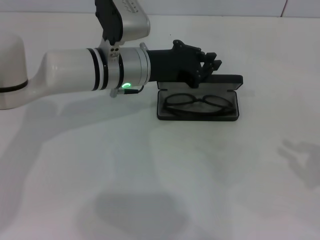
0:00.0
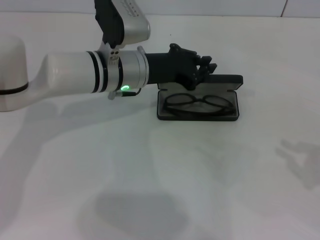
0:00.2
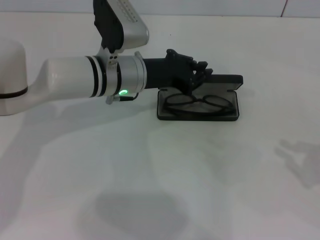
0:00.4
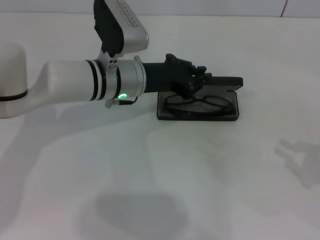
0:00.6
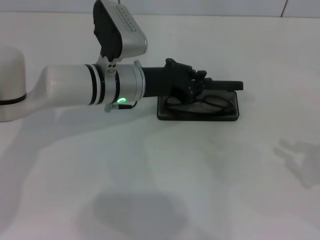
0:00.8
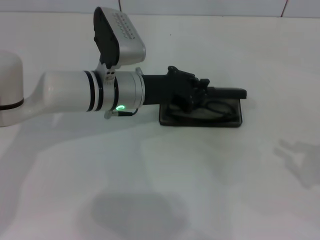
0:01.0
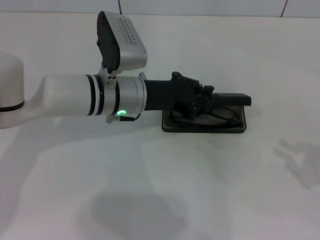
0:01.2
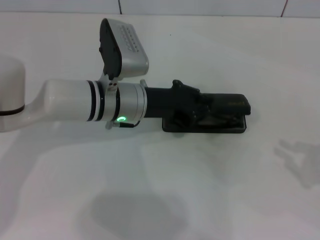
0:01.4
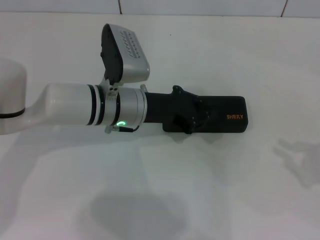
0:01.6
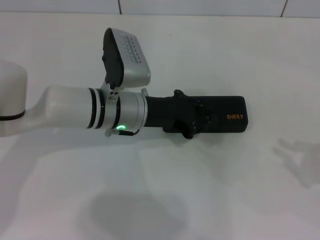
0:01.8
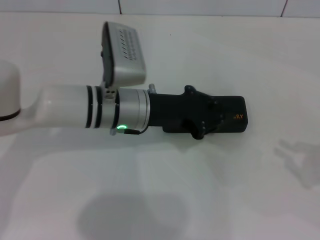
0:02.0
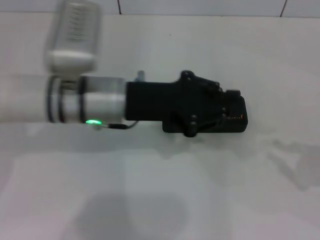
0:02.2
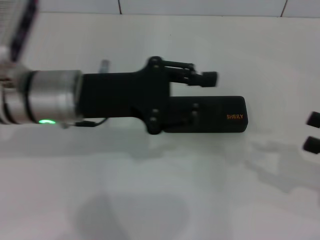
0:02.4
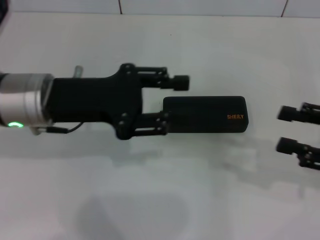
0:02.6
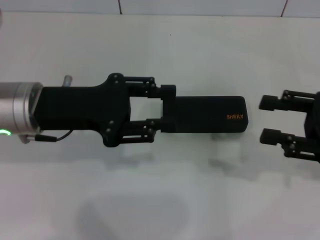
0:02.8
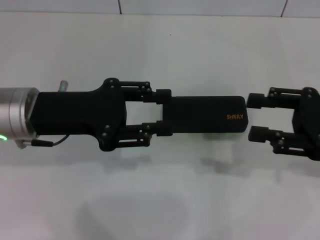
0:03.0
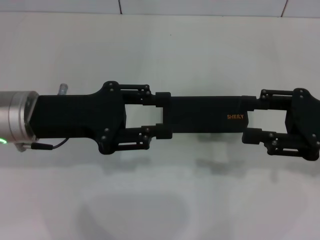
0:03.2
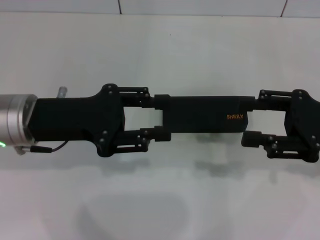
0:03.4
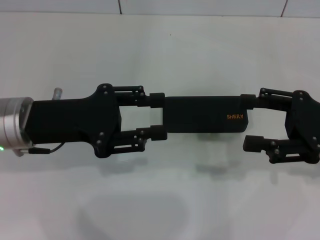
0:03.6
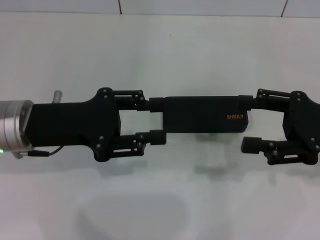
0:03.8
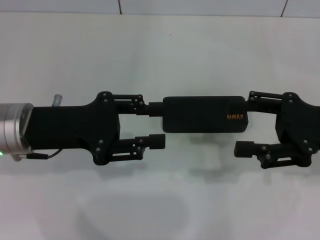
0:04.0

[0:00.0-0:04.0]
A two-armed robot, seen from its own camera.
0:00.0 to 0:01.4: There are only small adjustments of the grippers.
0:01.4 to 0:02.6: The right gripper goes roughly 5 cm to the left, while the left gripper goes about 15 cm to the left, upward and backward.
0:02.6 to 0:04.0: The right gripper is displaced to the left by roughly 5 cm, and opens.

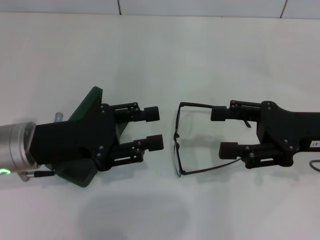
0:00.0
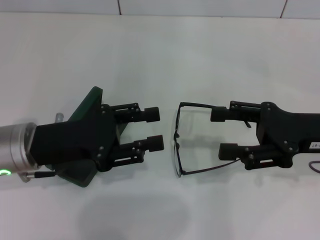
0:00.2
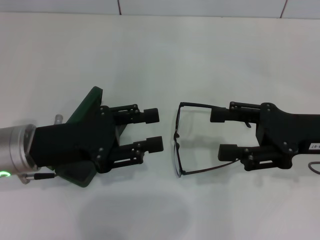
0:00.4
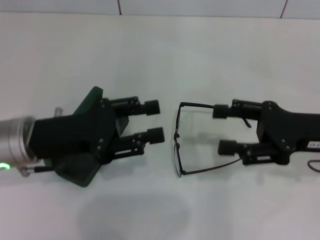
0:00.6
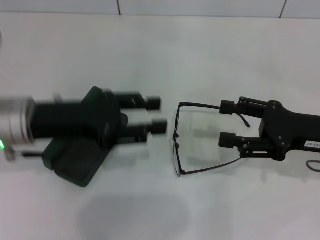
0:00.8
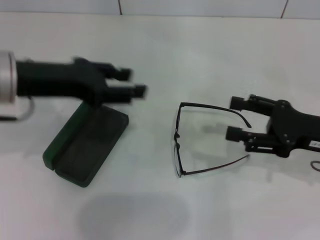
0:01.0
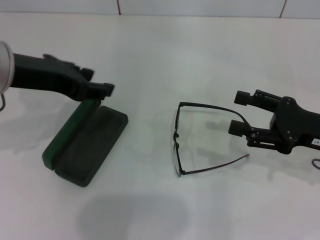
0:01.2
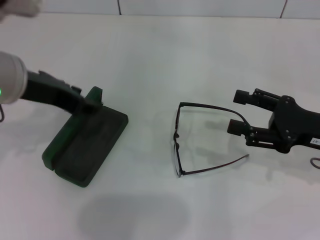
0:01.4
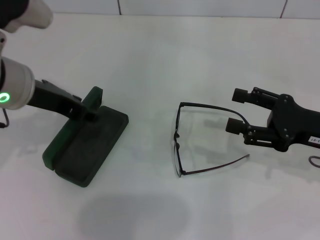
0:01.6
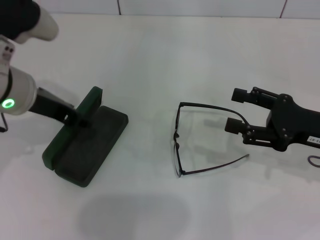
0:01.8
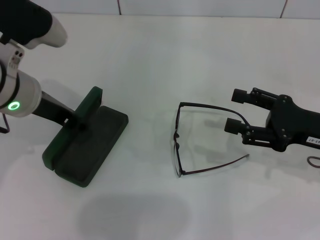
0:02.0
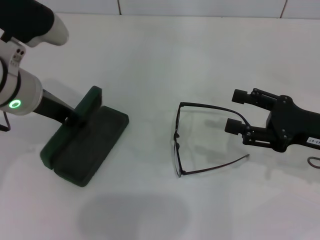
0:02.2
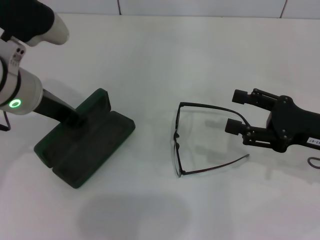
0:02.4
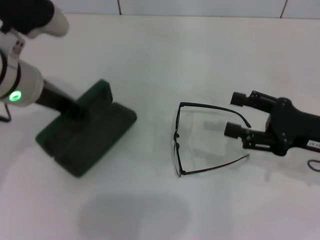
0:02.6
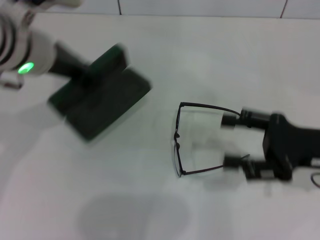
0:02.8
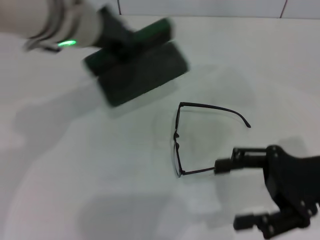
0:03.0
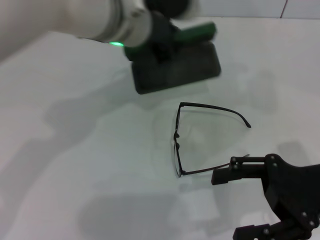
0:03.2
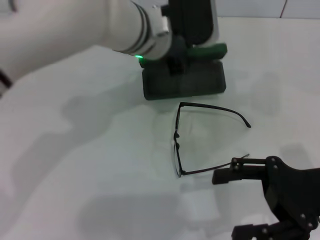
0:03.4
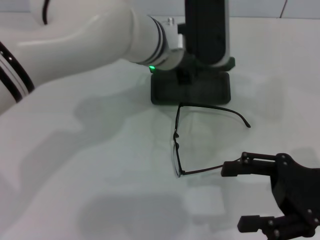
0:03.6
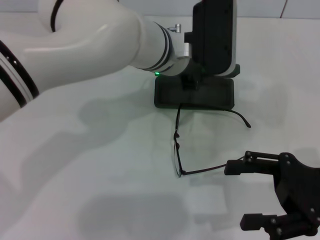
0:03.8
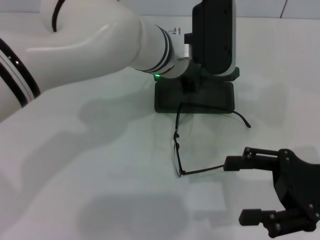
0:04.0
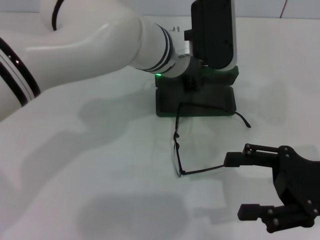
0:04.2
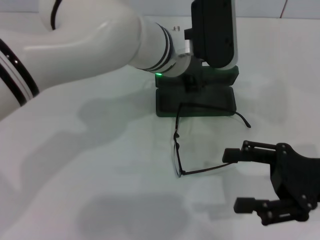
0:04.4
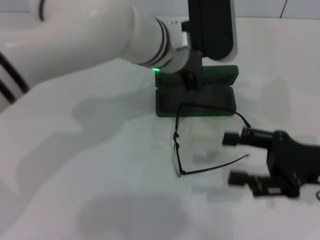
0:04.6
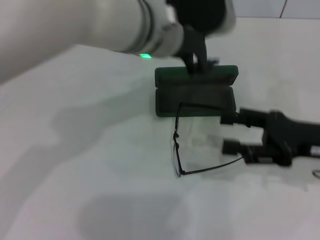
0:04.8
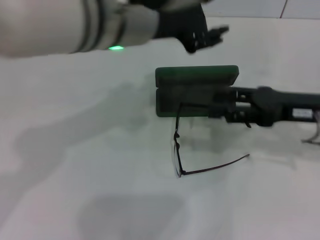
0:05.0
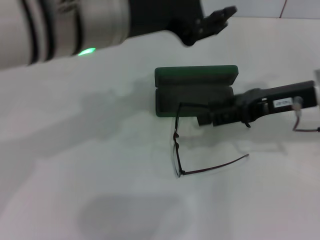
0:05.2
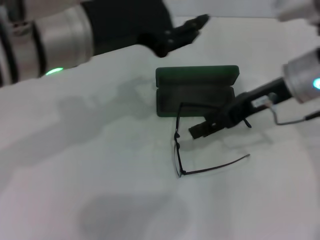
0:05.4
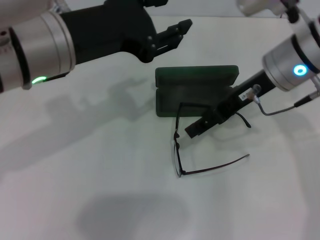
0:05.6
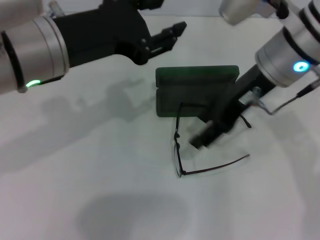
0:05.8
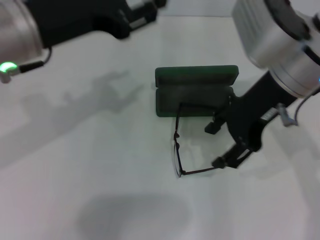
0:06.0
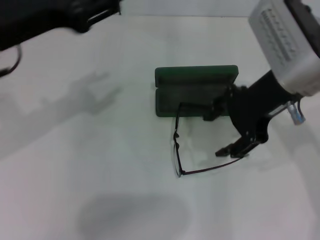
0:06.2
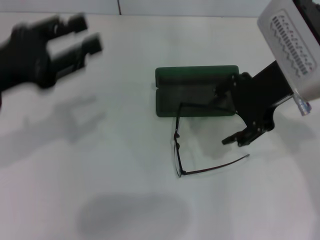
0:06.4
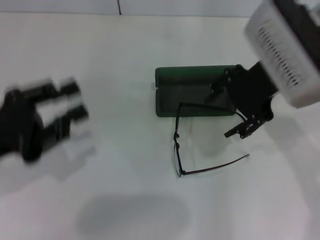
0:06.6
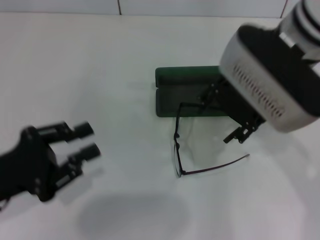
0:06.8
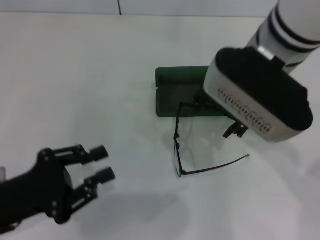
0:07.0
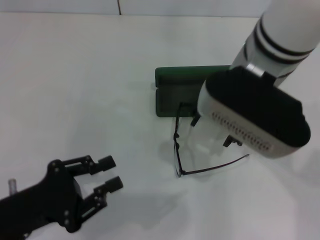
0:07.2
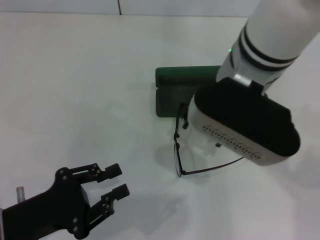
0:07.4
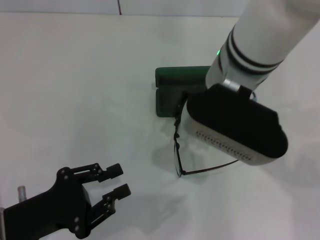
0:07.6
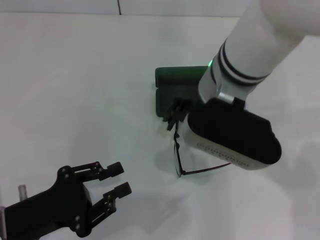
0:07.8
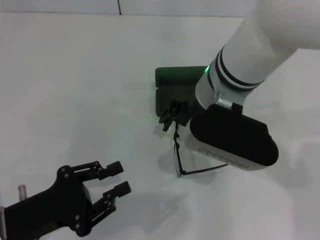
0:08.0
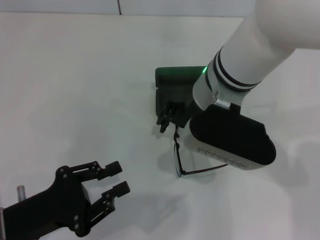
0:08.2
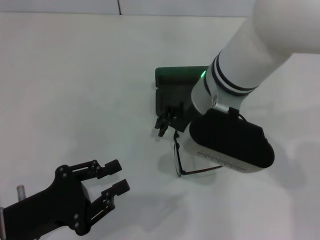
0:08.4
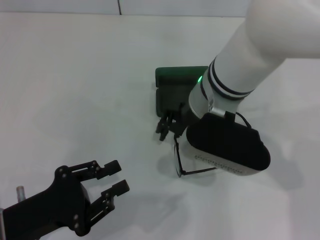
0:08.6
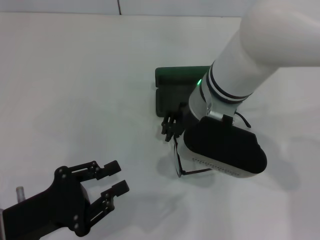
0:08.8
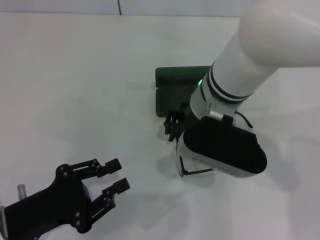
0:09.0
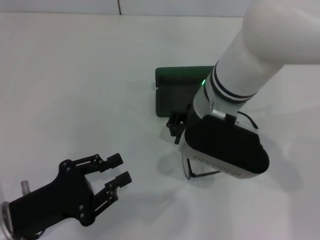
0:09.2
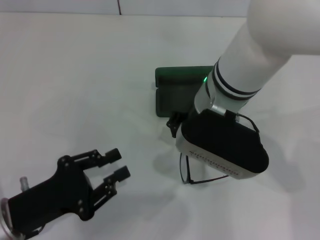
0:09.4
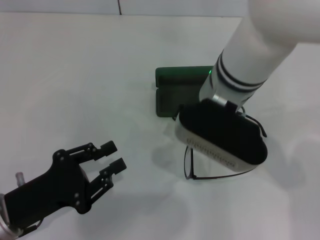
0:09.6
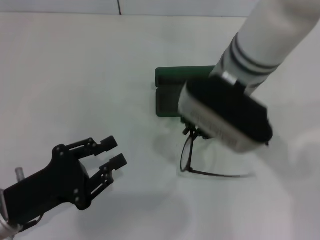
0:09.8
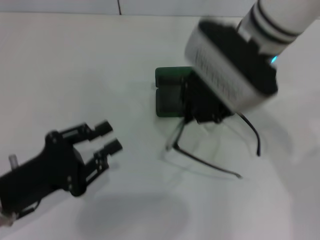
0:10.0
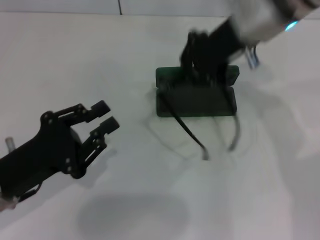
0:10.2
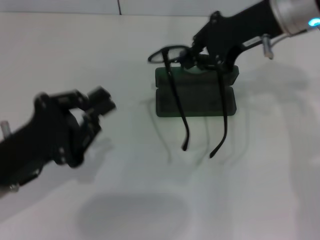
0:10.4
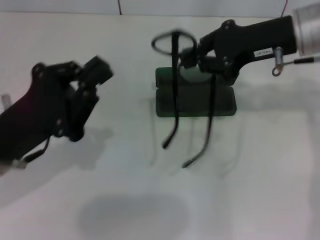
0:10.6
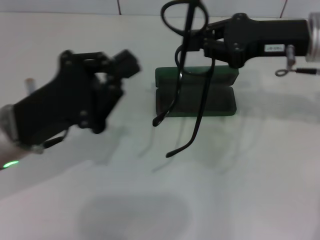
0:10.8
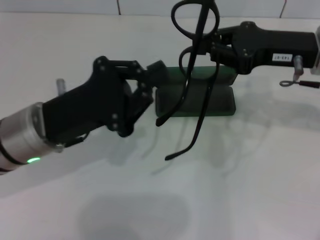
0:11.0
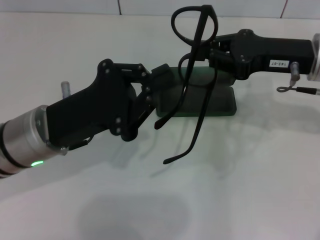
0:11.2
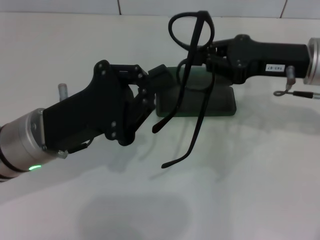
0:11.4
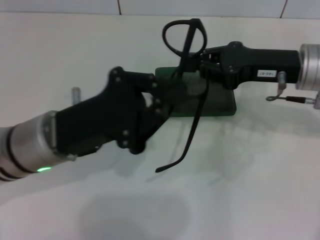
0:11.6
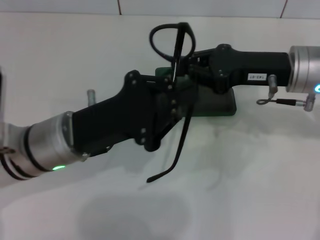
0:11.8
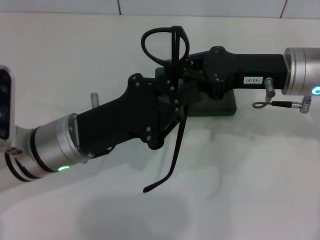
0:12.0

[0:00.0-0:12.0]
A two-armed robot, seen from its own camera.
Step, 0:00.0 to 0:02.4: Grab the glasses case with your left hand.
Step, 0:02.6 to 0:04.6: Place the glasses case in the center of the table with your left hand.
Step, 0:04.8 to 0:09.4: Grab the eyeglass frame with your right hand.
0:00.0 to 0:01.6: The left gripper heads upward, covering some 10 cm.
0:01.6 to 0:03.0: The left gripper heads to the right, covering approximately 10 cm, and closes.
0:03.0 to 0:04.4: The left gripper shifts approximately 15 cm to the right and downward.
0:04.4 to 0:06.0: The right gripper moves upward, to the left and forward, roughly 20 cm, while the left gripper moves to the left, backward and upward, about 20 cm, and opens its fingers.
0:06.0 to 0:07.6: The left gripper moves downward and backward, some 25 cm. Meanwhile the right gripper moves to the left, roughly 10 cm.
0:07.6 to 0:09.0: The right gripper is displaced downward by about 5 cm, and closes up.
0:09.0 to 0:10.4: The left gripper ends up roughly 5 cm from where it was, while the right gripper shifts about 15 cm to the right, upward and forward.
0:10.4 to 0:12.0: The right gripper moves downward and backward, approximately 10 cm; the left gripper travels to the right and forward by roughly 10 cm.

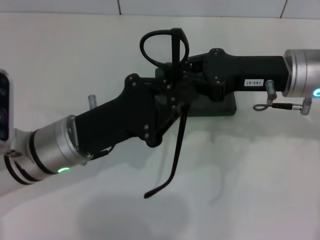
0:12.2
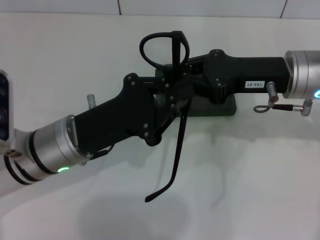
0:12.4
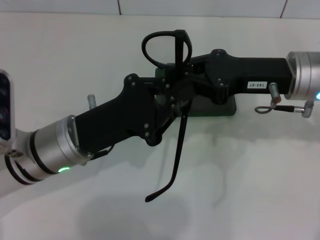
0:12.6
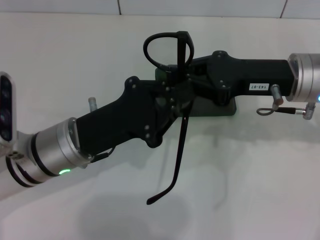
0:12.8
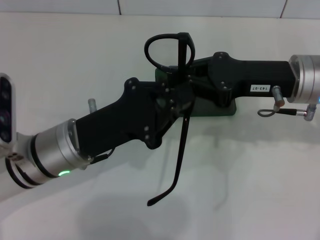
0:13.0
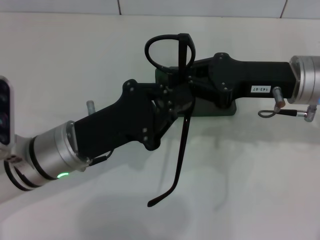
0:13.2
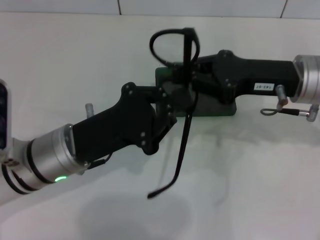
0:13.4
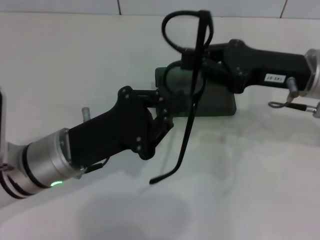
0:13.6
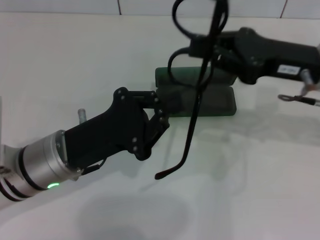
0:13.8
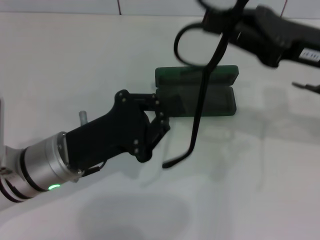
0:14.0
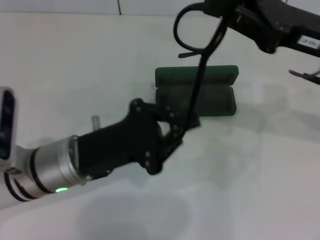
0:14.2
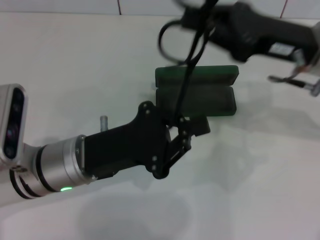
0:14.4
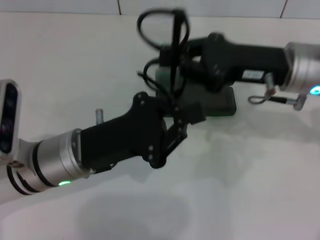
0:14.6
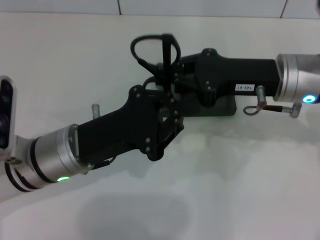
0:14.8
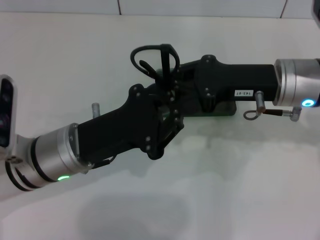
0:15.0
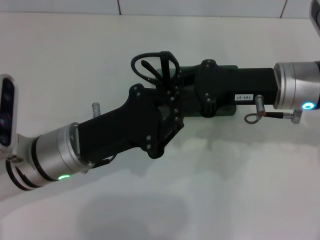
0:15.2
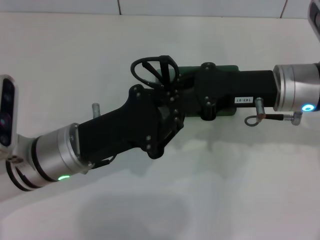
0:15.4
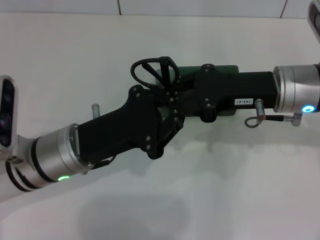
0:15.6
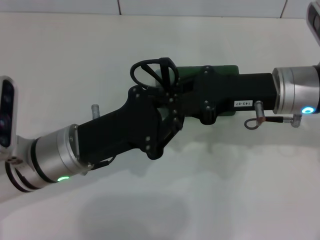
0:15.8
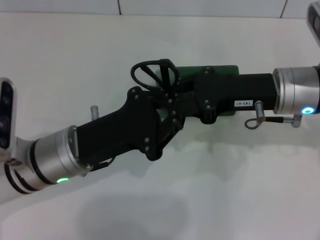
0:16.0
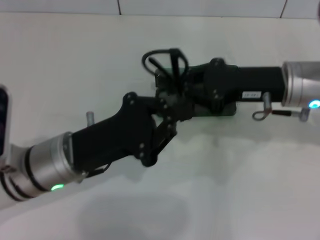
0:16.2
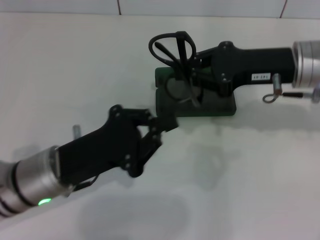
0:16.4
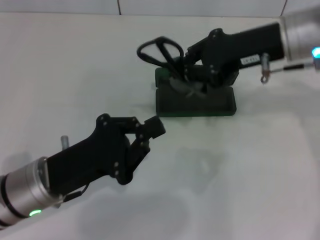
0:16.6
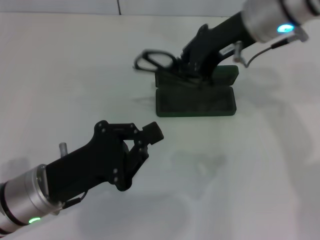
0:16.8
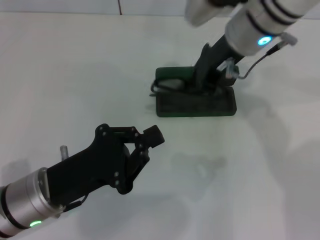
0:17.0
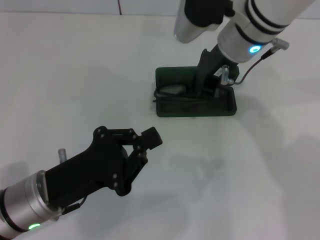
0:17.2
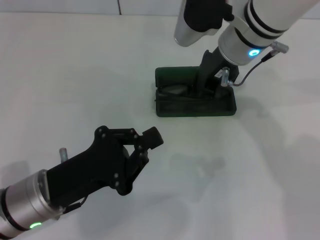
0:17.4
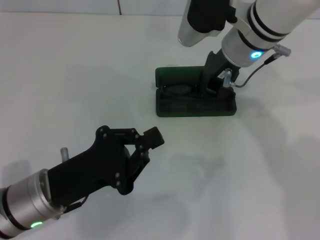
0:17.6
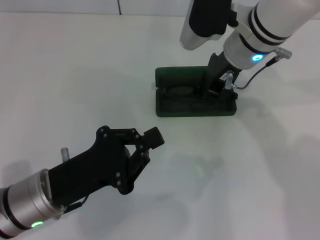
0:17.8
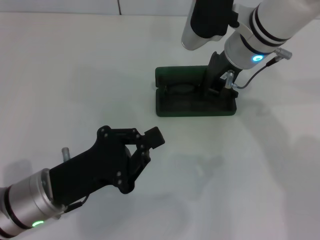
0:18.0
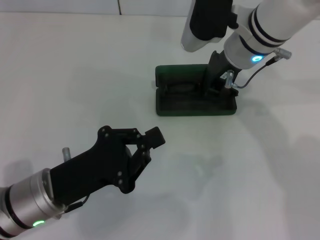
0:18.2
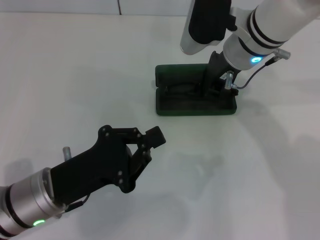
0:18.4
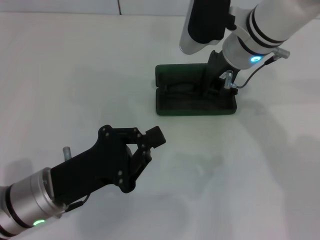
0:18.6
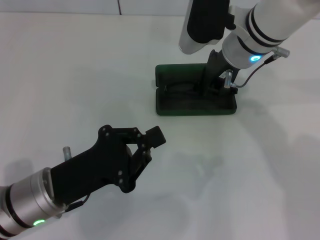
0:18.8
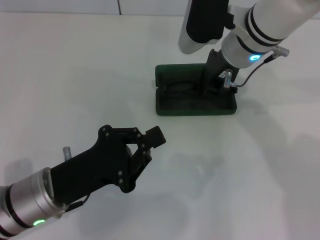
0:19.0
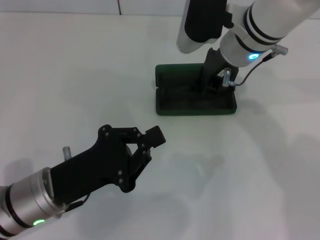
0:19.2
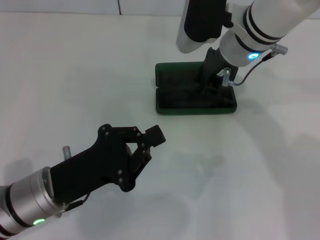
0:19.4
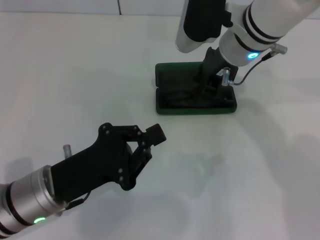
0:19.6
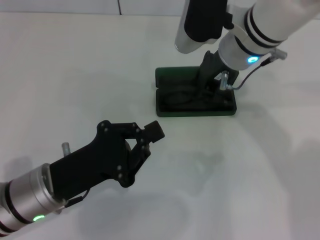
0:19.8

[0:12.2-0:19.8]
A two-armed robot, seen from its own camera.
Step, 0:12.2 to 0:15.4: Fold the frame with your left hand.
0:15.2 to 0:16.8: The left gripper shifts by some 5 cm, while the right gripper goes approximately 10 cm upward, forward and to the left.
0:16.8 to 0:18.2: The right gripper is displaced downward by about 5 cm.
0:18.2 to 0:19.8: Both grippers stay put.
